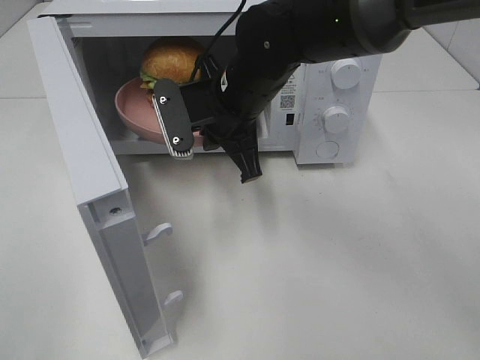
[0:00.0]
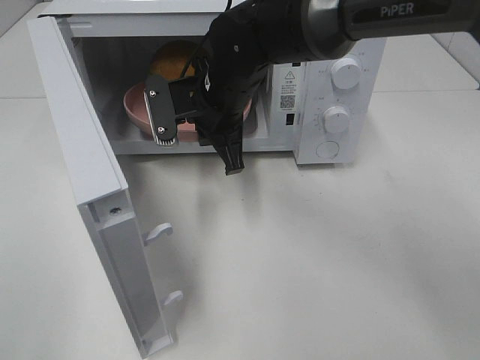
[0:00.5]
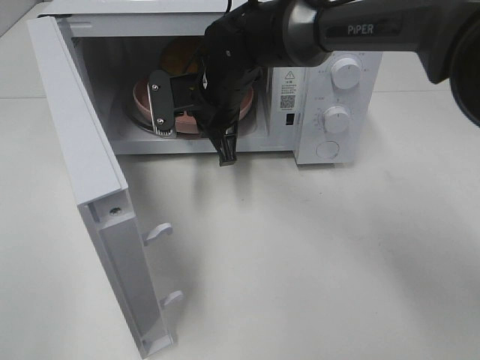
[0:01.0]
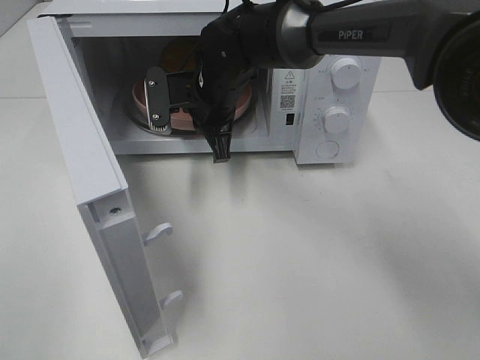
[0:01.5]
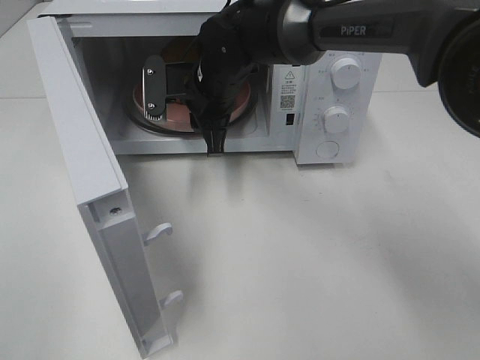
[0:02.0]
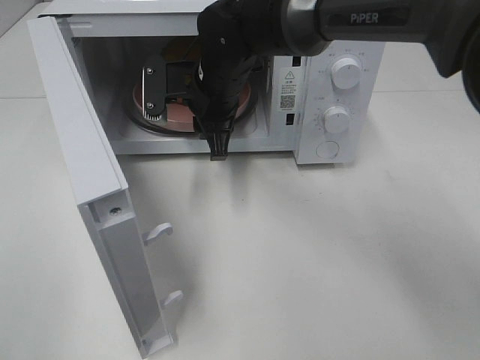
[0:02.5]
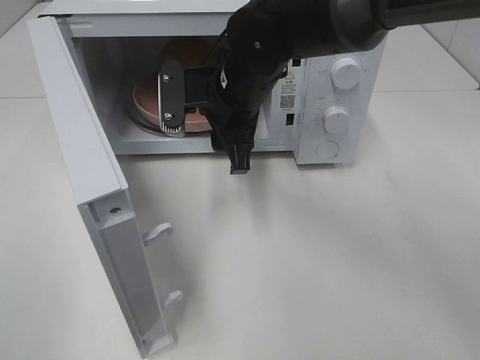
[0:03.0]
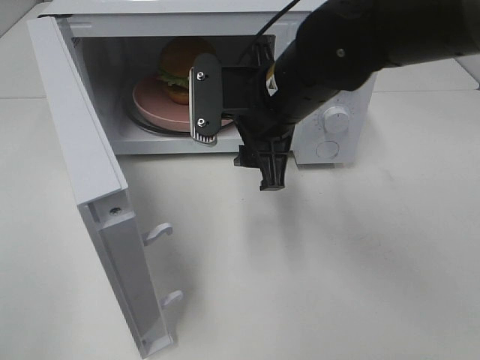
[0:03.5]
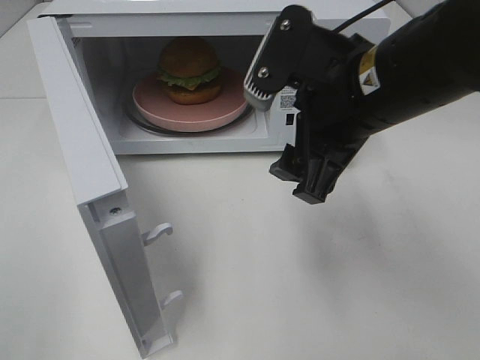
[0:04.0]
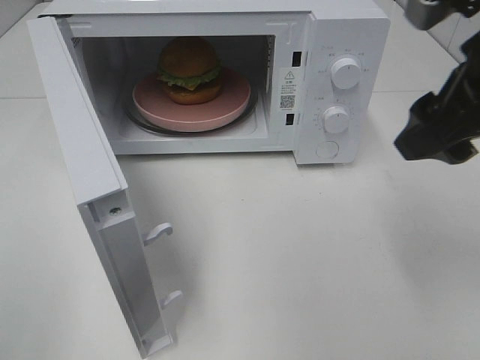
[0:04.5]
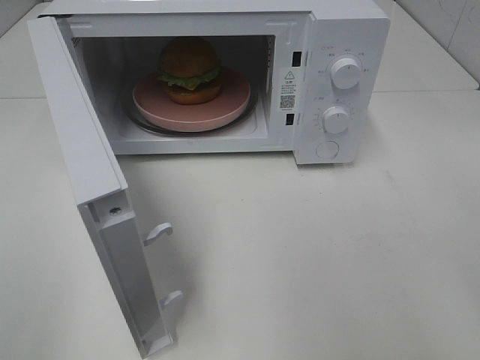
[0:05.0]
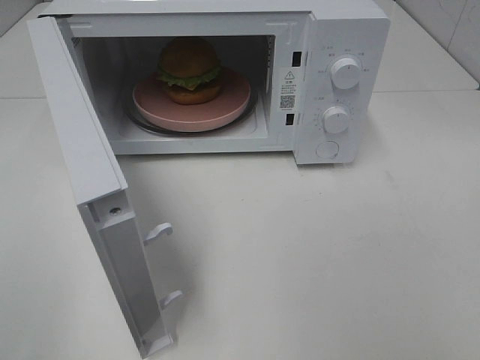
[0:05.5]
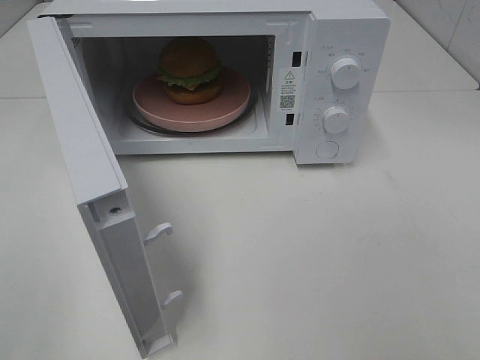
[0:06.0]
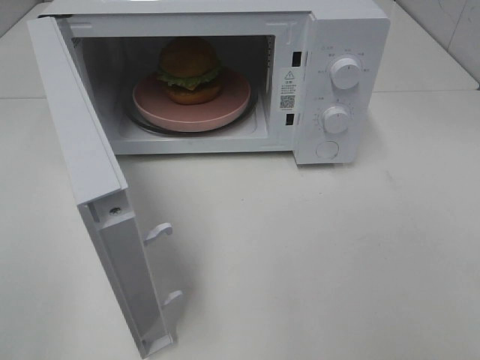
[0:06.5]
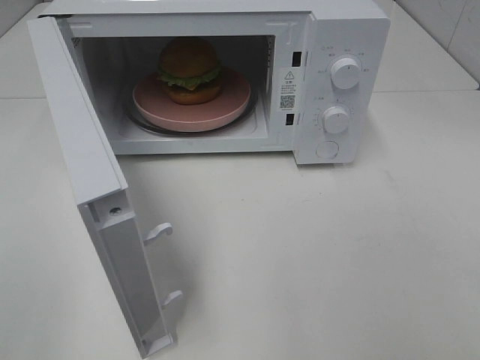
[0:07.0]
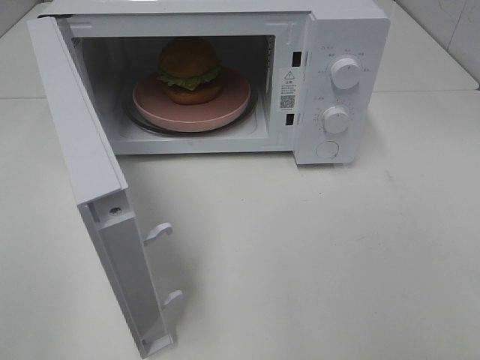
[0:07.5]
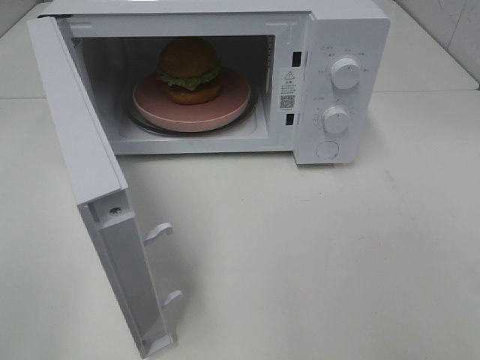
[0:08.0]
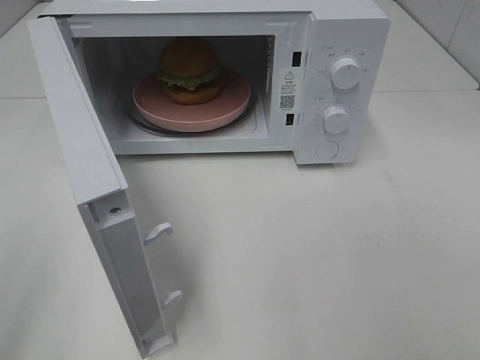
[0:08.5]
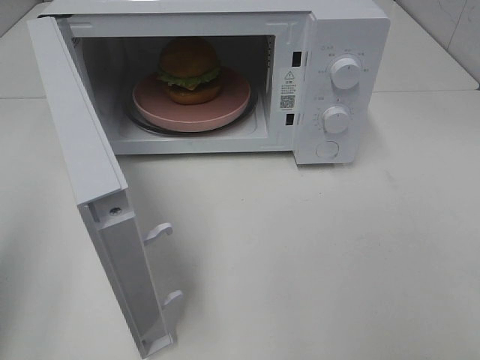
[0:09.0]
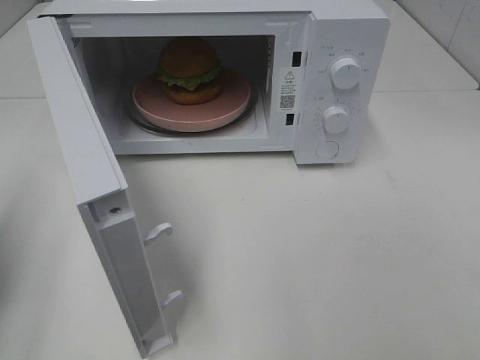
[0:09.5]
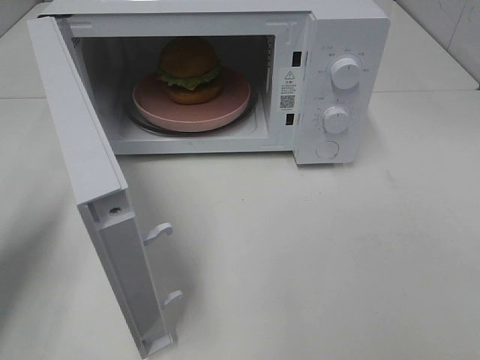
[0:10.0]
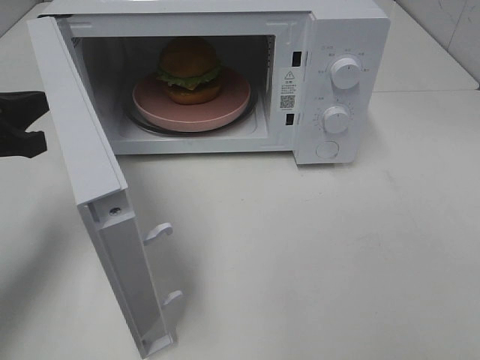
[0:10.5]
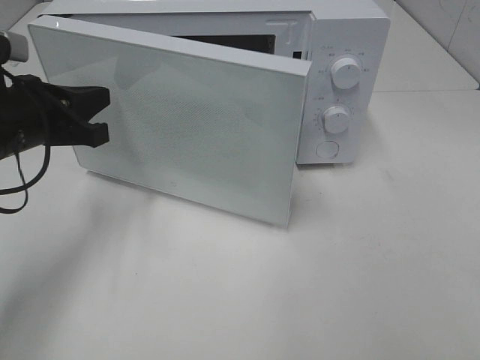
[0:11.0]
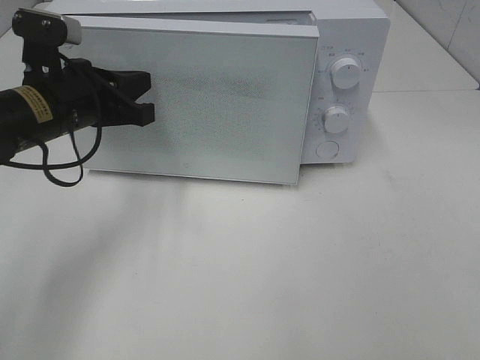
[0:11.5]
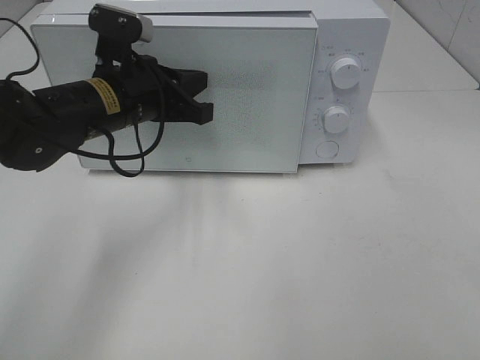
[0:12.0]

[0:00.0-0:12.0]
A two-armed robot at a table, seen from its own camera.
Task of the whole recording: Heat the burger.
0:00.0 to 0:02.0: The right gripper shifts approximately 5 cm forward.
0:02.0 to 0:04.0: The right gripper moves backward, to the right and upward, some 25 cm, and opens up.
0:04.0 to 0:06.0: The right gripper shifts some 30 cm backward and to the right.
0:08.0 to 0:10.0: The left gripper heads forward and downward, covering approximately 25 cm, and closes.
0:10.0 to 0:12.0: The left gripper heads to the right and forward, covering approximately 25 cm.

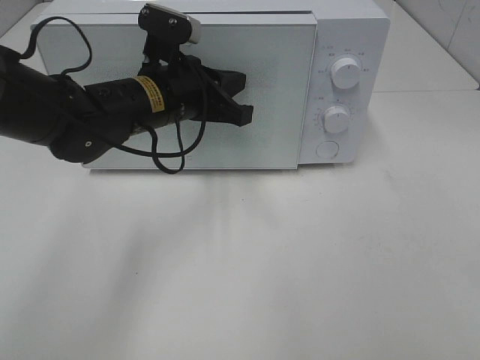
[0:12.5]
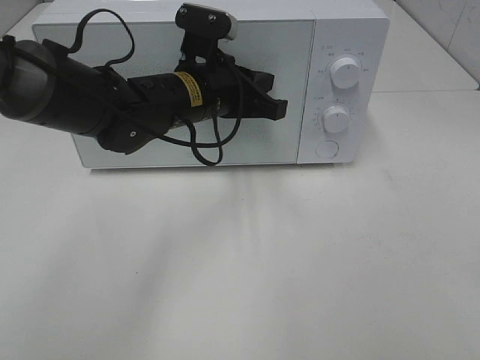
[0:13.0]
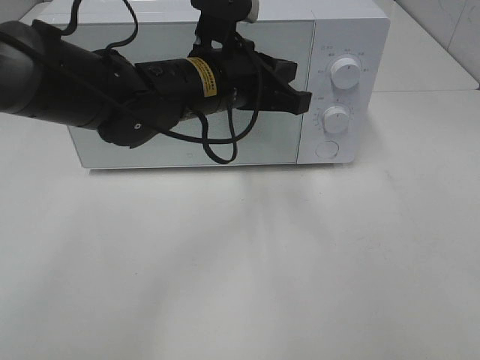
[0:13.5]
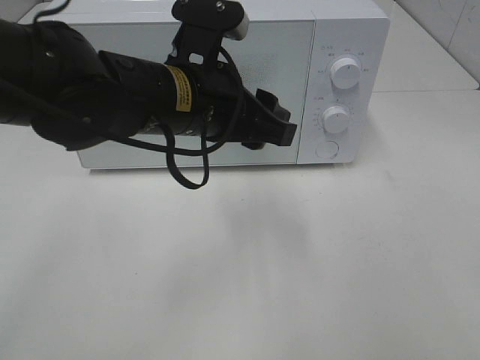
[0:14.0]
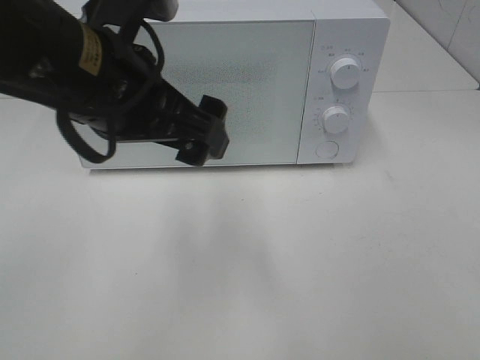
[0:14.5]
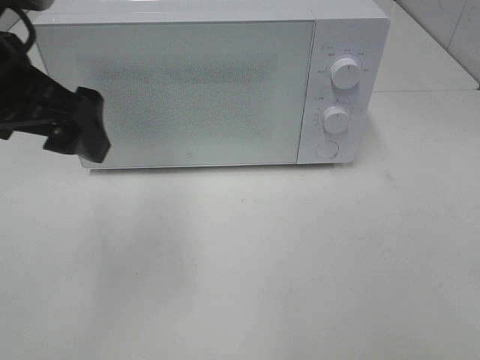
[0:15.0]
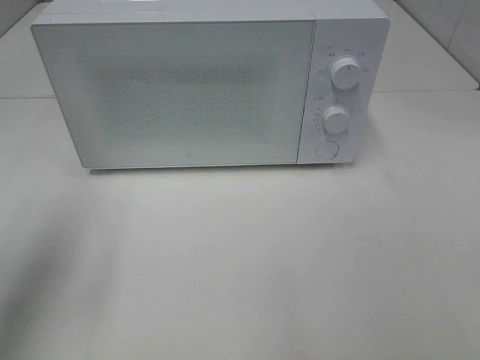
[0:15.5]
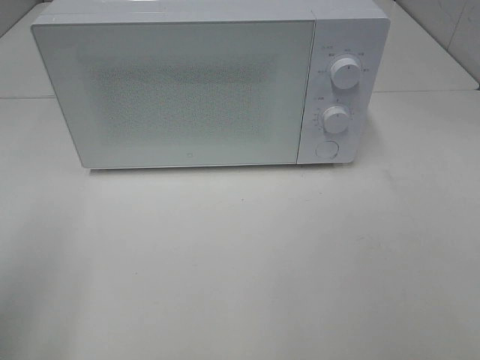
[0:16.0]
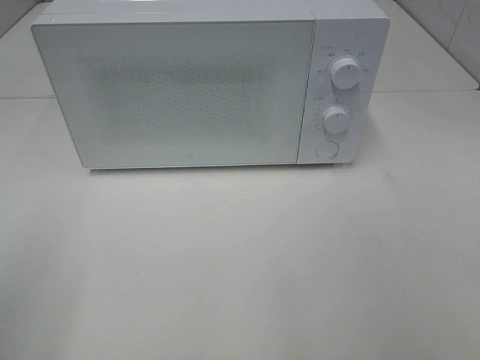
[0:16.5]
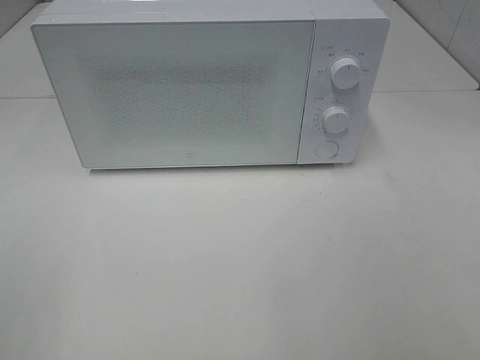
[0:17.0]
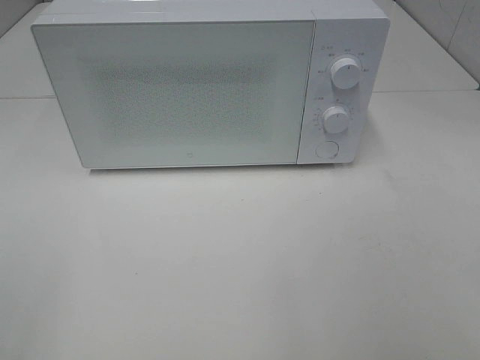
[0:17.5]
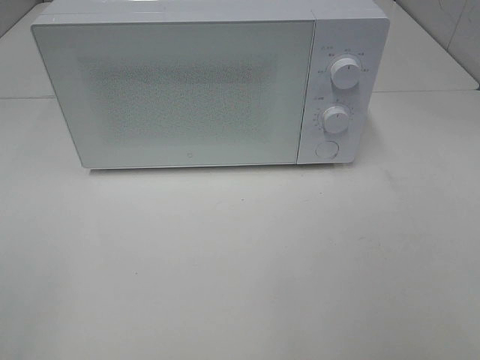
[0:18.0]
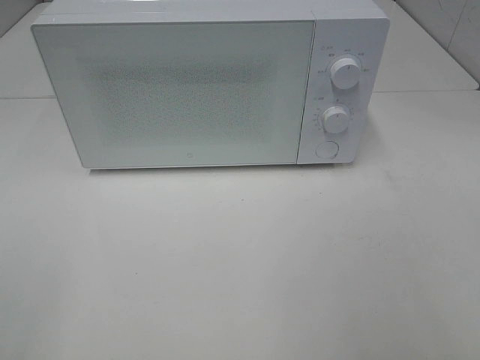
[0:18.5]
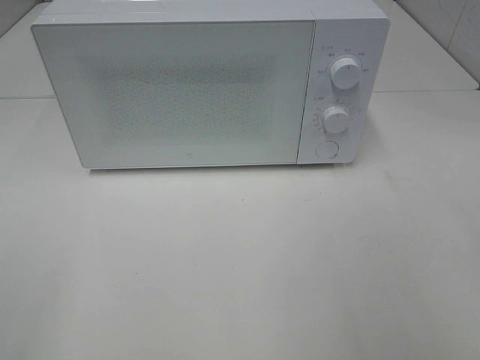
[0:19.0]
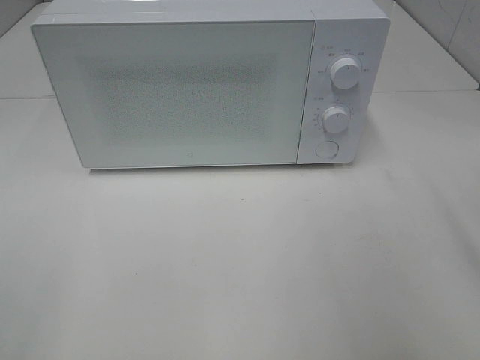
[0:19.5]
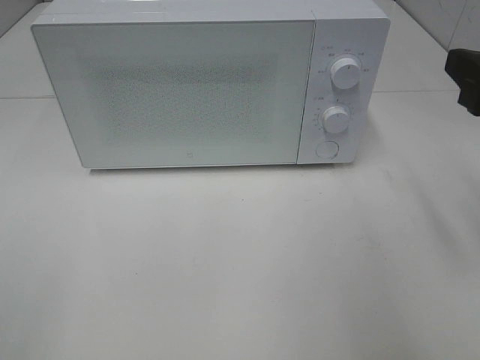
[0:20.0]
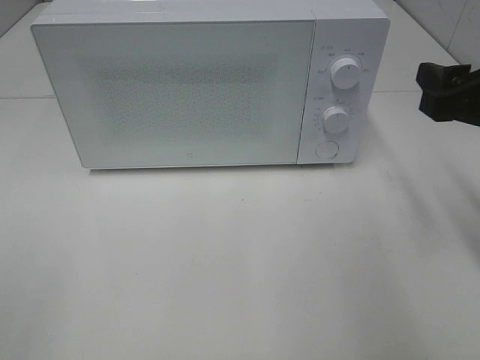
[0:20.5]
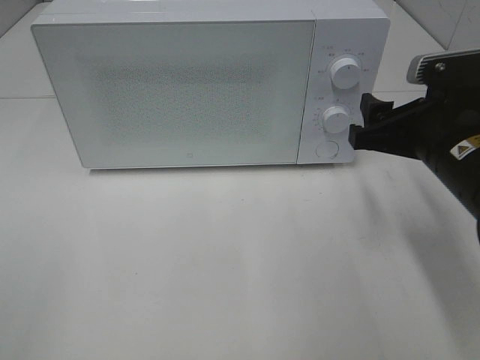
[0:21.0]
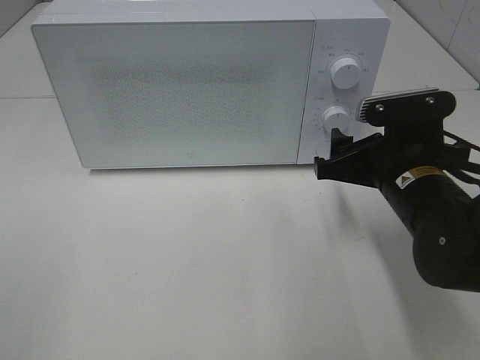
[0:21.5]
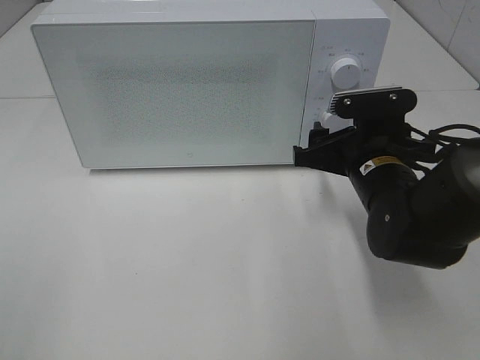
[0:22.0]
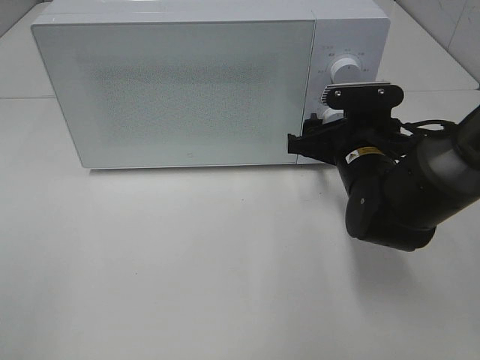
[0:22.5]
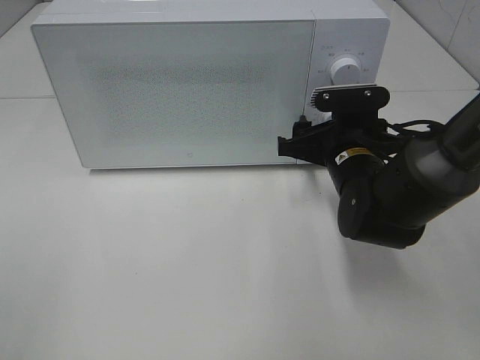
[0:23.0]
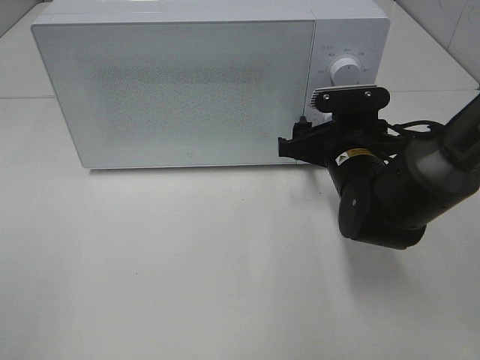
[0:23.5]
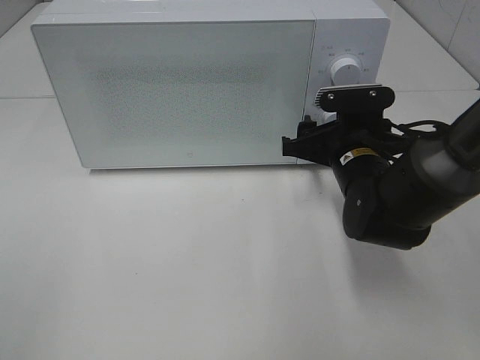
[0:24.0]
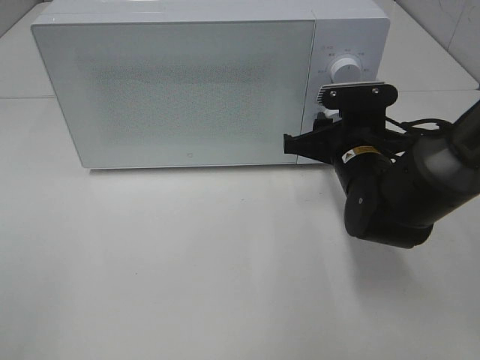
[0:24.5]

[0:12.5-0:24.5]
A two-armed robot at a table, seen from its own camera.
Task of the whole recording: Heat the burger.
0:12.5 to 0:14.5: The left gripper moves backward and upward, roughly 15 cm, and opens up.
0:14.5 to 0:16.5: The left gripper moves to the left and backward, roughly 25 cm.
0:18.5 to 0:20.5: The right gripper is displaced forward and downward by roughly 25 cm.
0:20.5 to 0:22.5: The right gripper travels downward, to the left and forward by some 20 cm.
0:22.5 to 0:24.5: The right gripper closes its fingers.

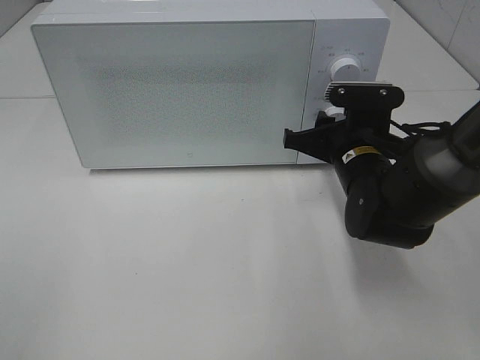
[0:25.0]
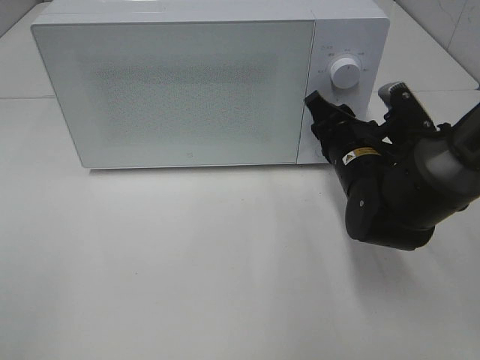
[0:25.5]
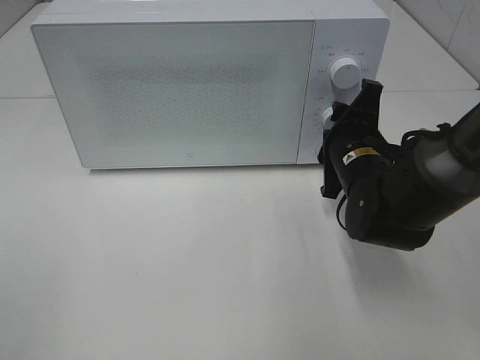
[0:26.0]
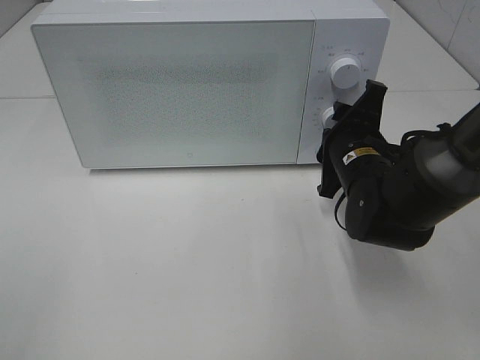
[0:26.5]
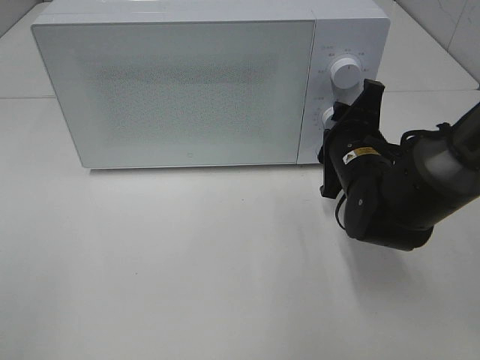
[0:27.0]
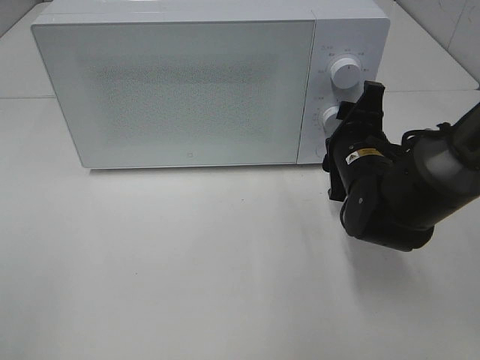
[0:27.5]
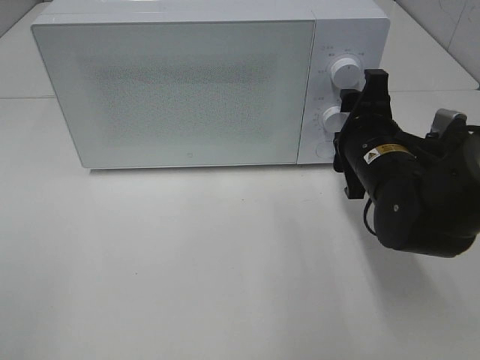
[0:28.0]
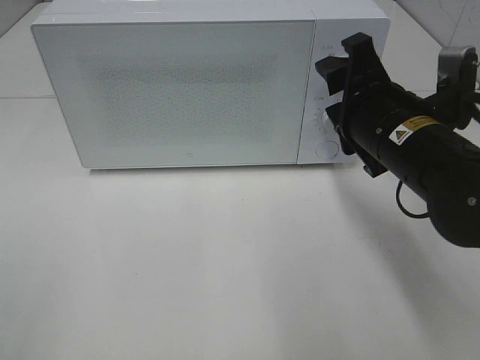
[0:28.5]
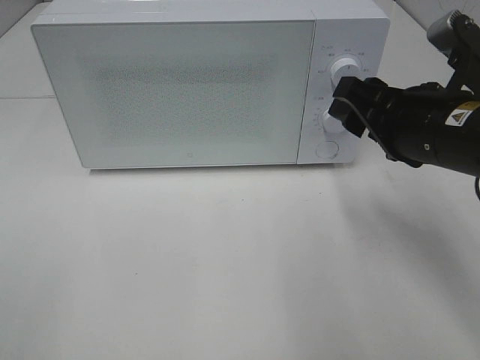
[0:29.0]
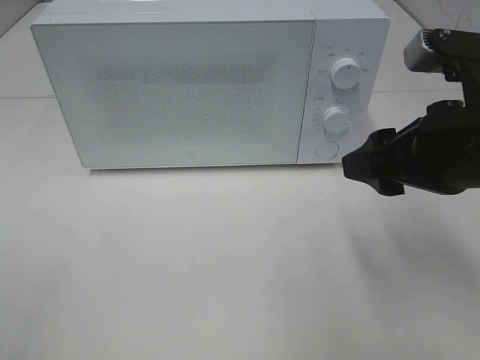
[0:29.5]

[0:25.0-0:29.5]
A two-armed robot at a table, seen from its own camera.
Task of the whole recording: Heat the burger.
Step, 0:25.0 to 0:27.5: Right hand: twist timer button.
0:27.0 to 0:29.5: The right gripper is displaced upward and backward by about 15 cm.
